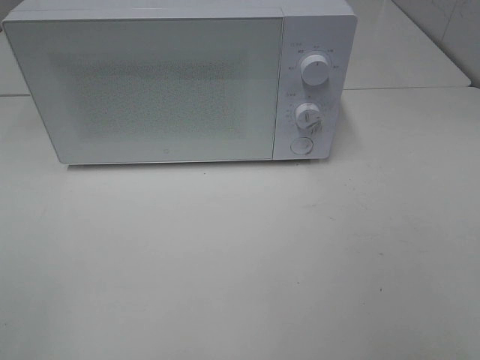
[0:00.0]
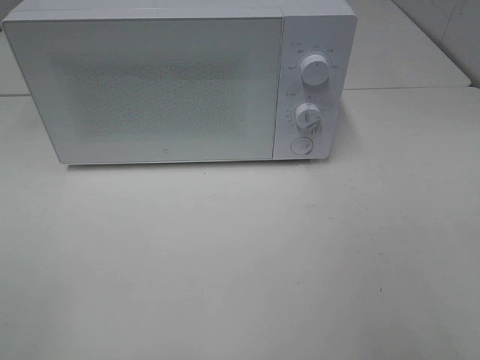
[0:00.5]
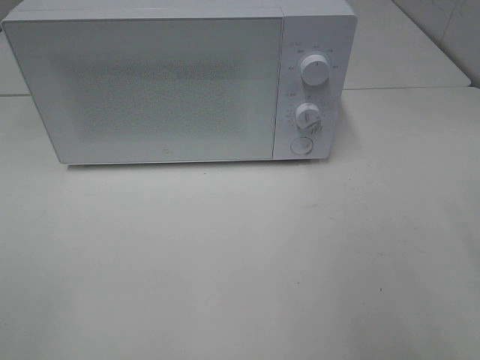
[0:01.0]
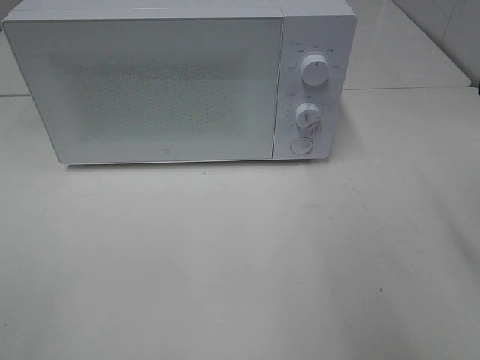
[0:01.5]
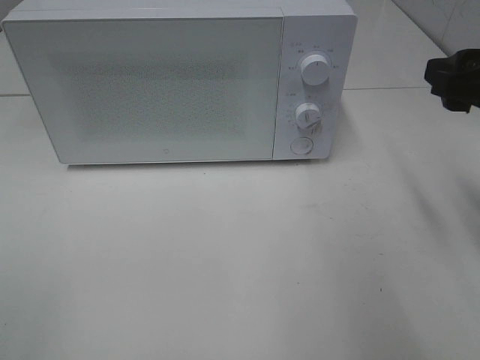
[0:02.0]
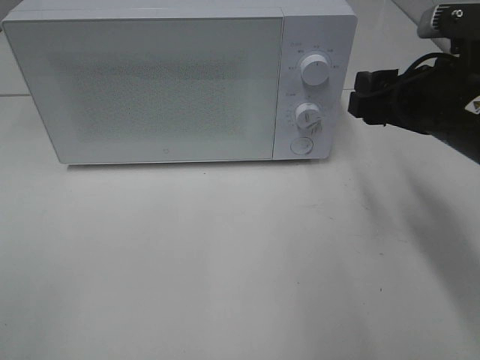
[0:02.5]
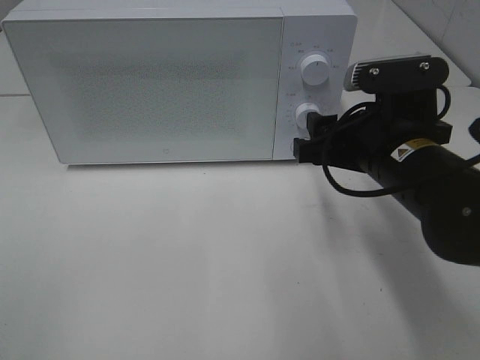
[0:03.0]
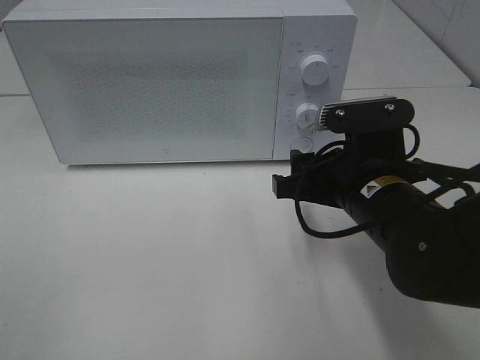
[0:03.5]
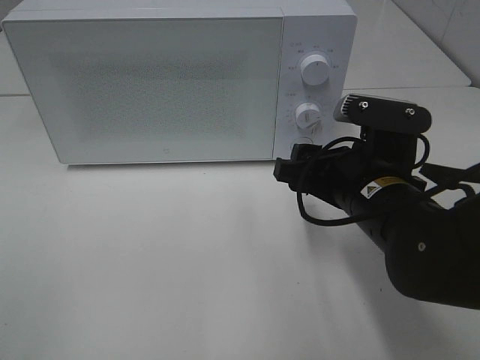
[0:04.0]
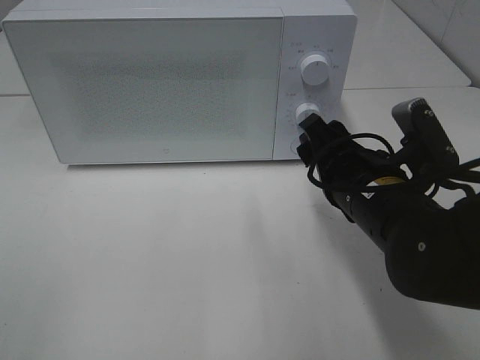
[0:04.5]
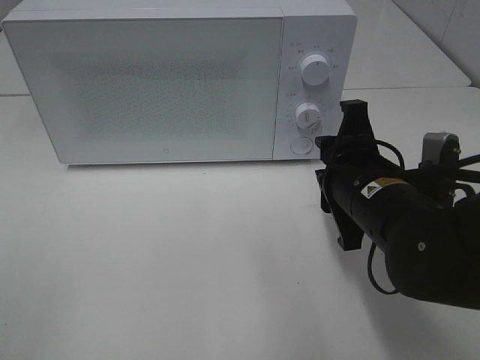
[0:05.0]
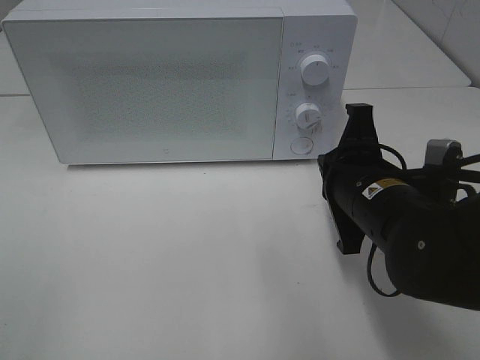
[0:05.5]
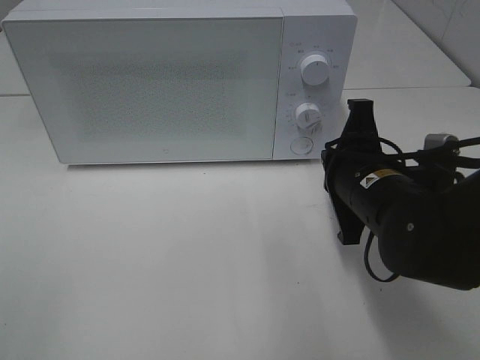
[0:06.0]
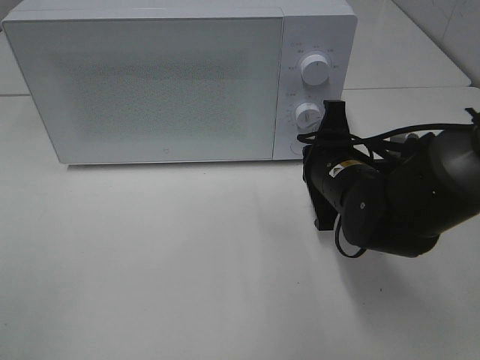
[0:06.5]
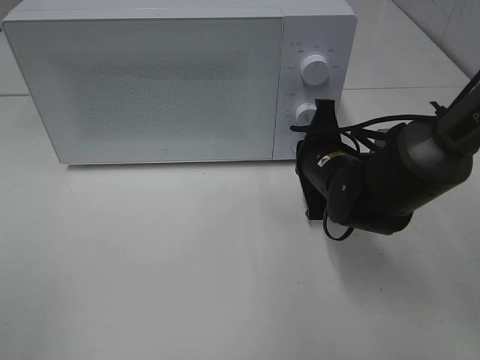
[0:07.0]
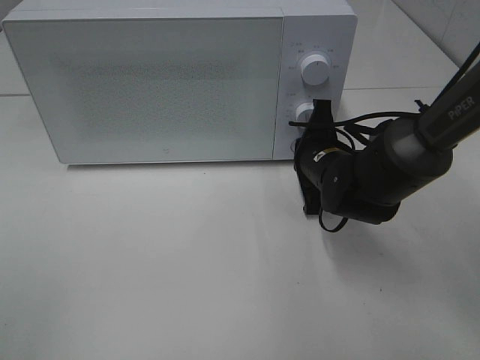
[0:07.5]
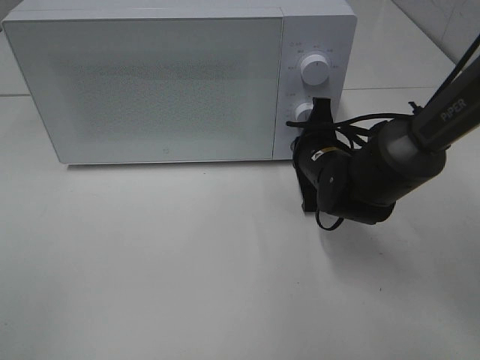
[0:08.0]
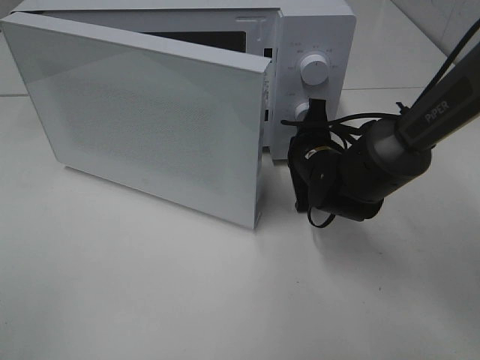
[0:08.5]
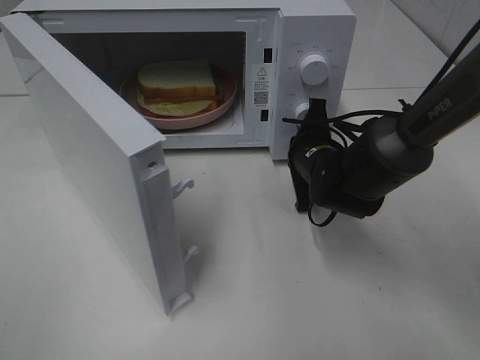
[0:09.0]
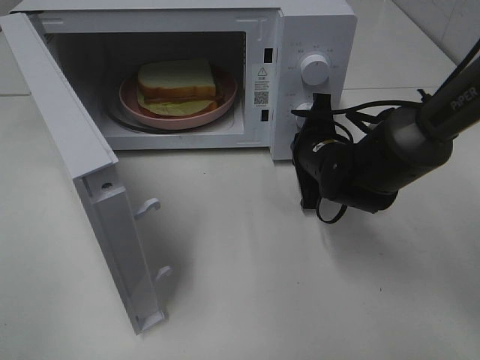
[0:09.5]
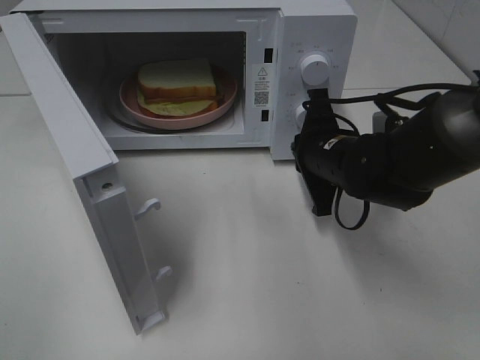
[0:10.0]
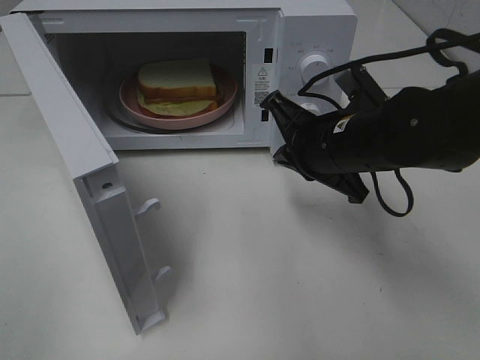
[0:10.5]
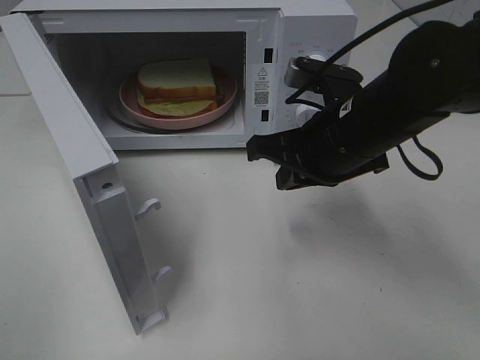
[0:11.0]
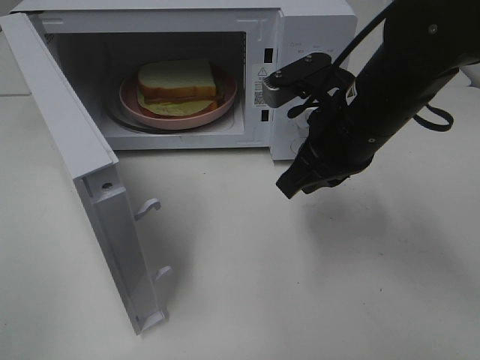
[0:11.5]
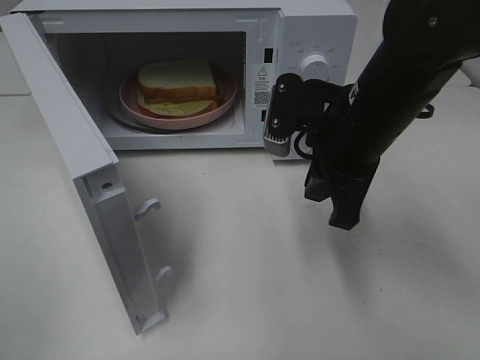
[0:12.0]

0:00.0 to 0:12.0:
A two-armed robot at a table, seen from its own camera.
Task of the whole recording: Heat Sandwich.
Step, 0:00.0 to 0:10.0: Right hand: press the switch.
0:00.0 to 0:02.0: The right gripper shifts approximately 25 cm forward.
0:02.0 to 0:04.0: The right gripper moves to the left and downward, about 15 cm.
0:04.0 to 0:06.0: The right gripper closes up.
0:06.0 to 0:08.0: The right gripper travels forward and downward by approximately 10 cm.
0:10.0 to 0:12.0: The right gripper goes about 10 cm upward.

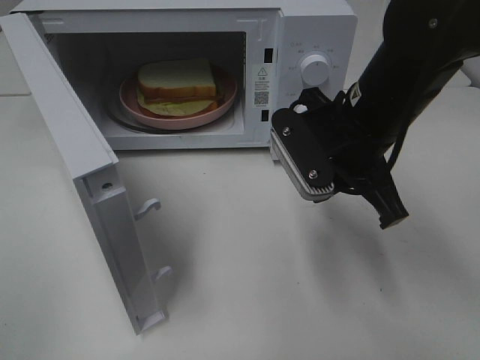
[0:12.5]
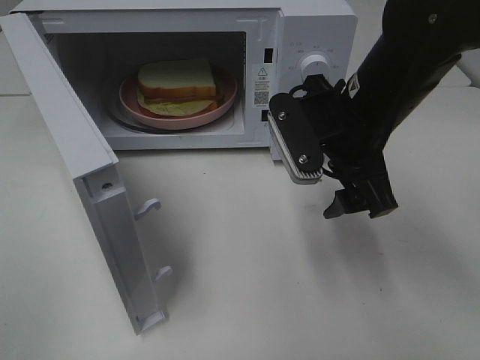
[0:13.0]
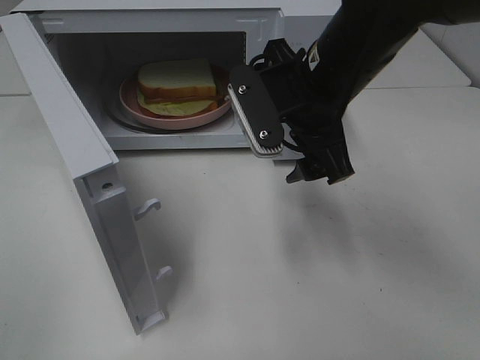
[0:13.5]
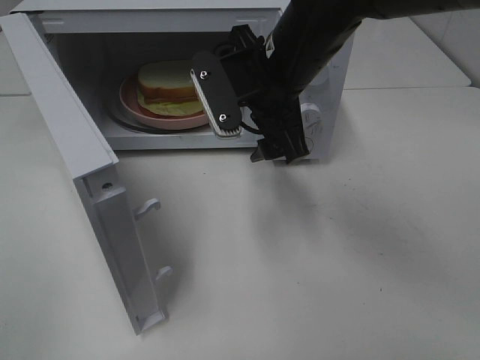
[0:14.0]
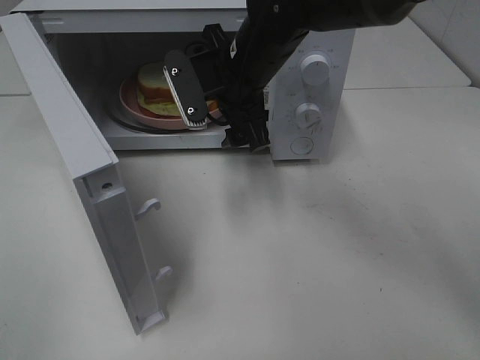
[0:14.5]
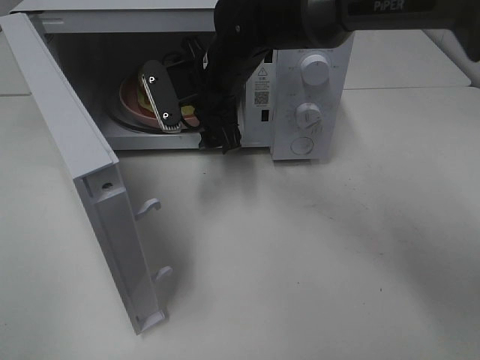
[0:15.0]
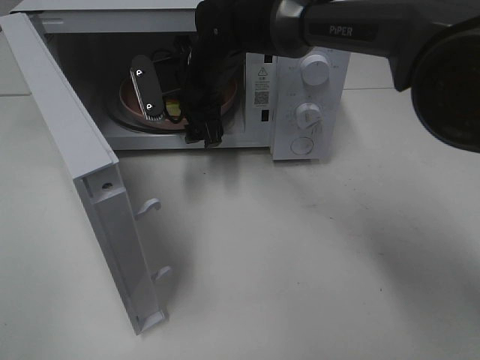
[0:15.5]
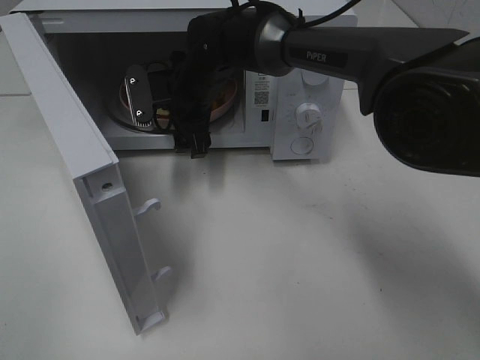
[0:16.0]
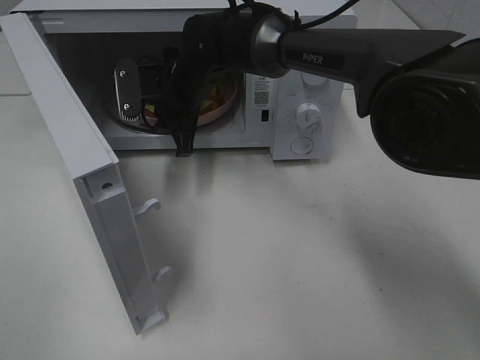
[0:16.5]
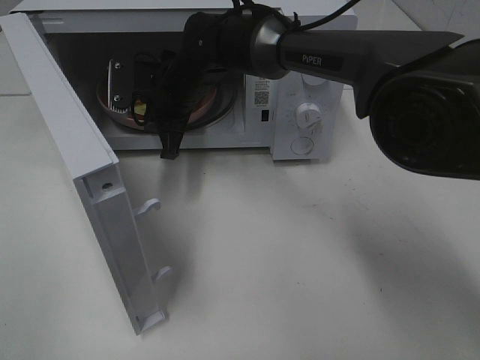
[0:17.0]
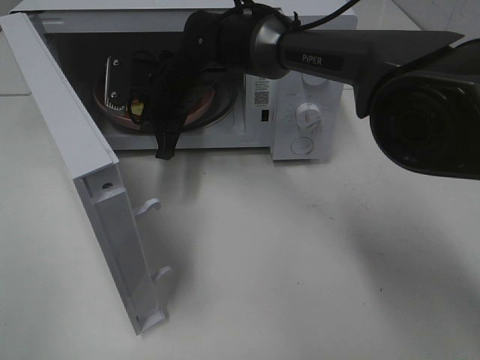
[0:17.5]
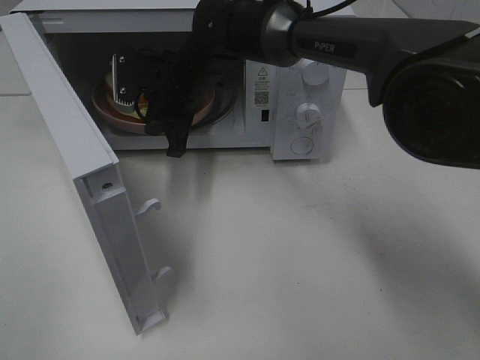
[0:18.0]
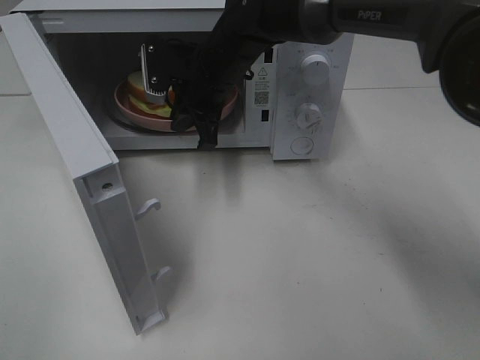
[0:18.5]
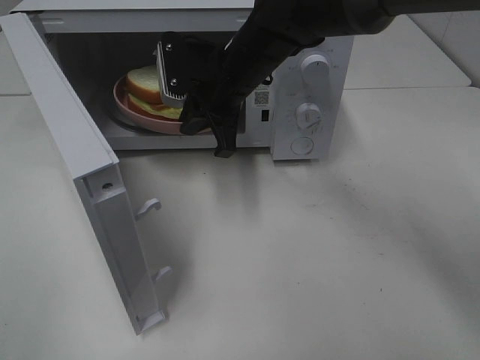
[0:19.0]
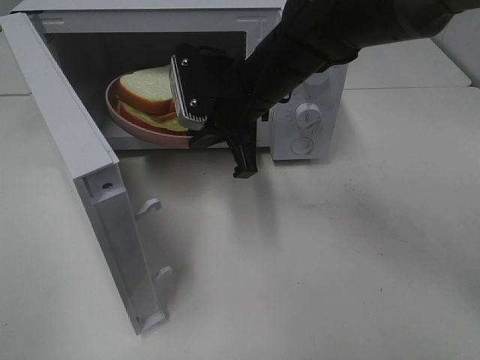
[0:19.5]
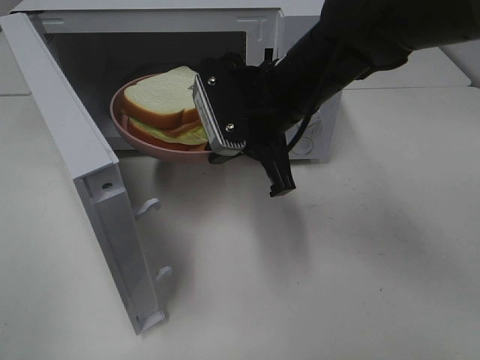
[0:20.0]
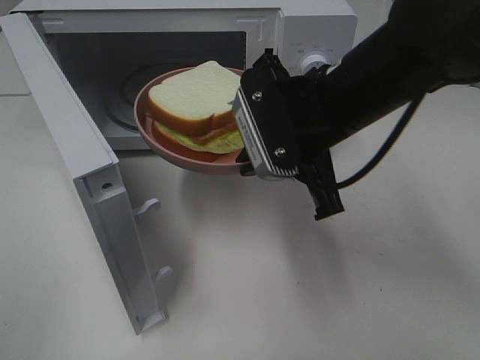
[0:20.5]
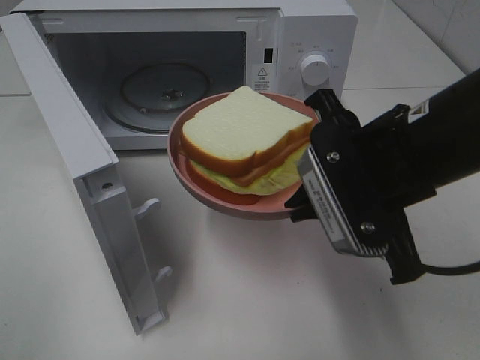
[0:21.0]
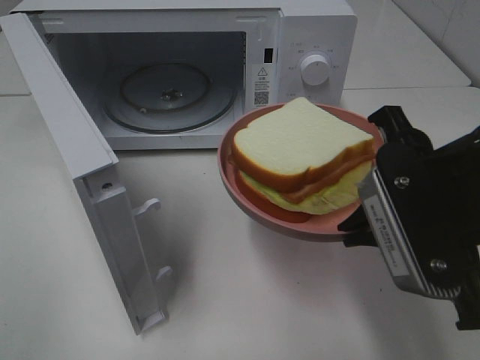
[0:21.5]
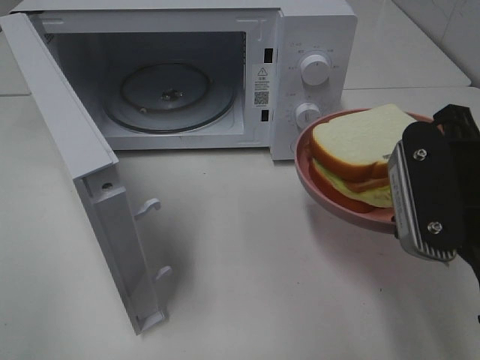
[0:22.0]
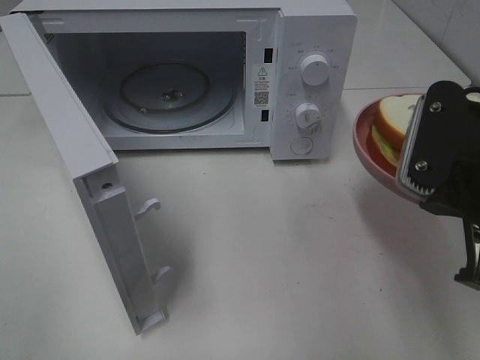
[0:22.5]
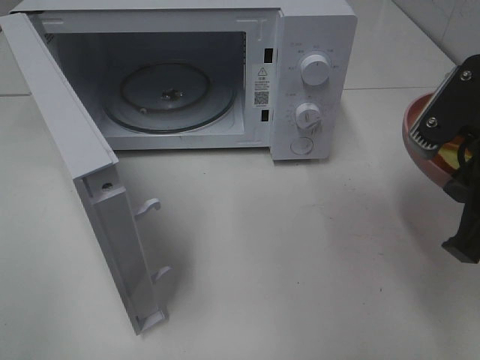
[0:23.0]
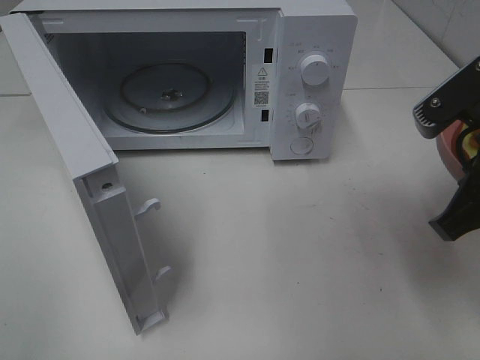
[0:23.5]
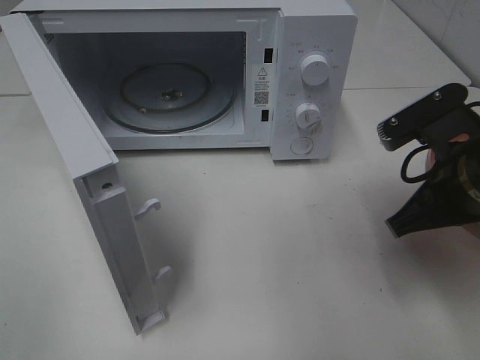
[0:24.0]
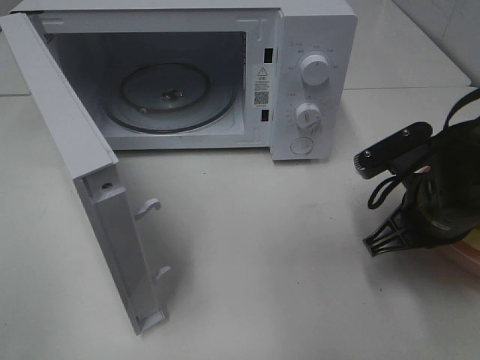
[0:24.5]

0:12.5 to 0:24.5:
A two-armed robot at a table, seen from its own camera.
Task of the whole recording: Heat Sandwich.
Step, 0:12.5 to 0:17.0: Right hand: grab the plate with the sandwich.
0:12.5 to 0:14.5: The right gripper travels to the left and forward by roughly 15 cm, and opens its fingers.
0:14.5 to 0:16.5: The right gripper travels to the left, forward and downward by about 10 cm, and closes up.
0:16.5 to 0:18.5: The right gripper shifts by roughly 5 cm.
0:18.5 to 0:20.5: The right gripper heads backward and to the right, covering approximately 20 cm.
0:20.5 to 0:22.5: The right gripper is displaced to the right and backward by about 15 cm.
0:22.5 to 0:24.5: The right gripper moves downward and forward, some 15 cm.

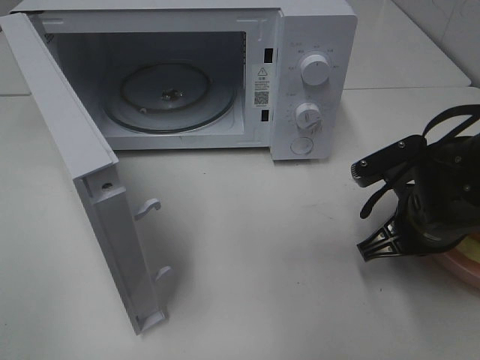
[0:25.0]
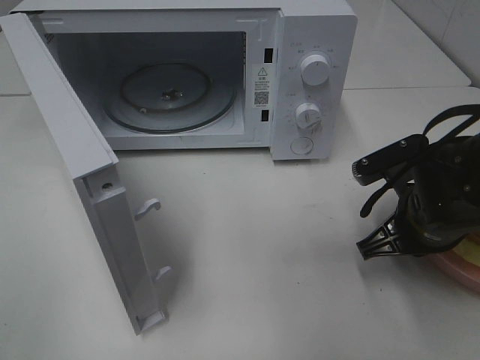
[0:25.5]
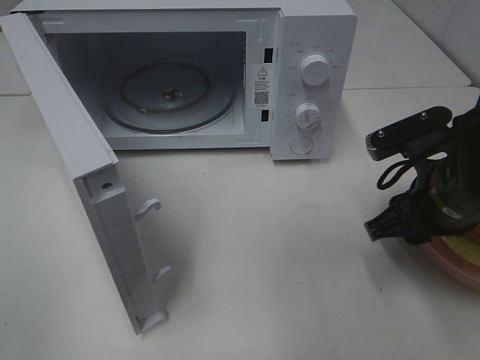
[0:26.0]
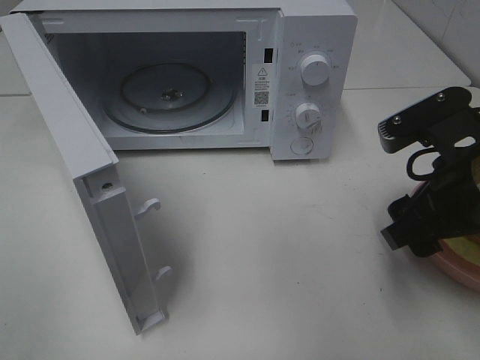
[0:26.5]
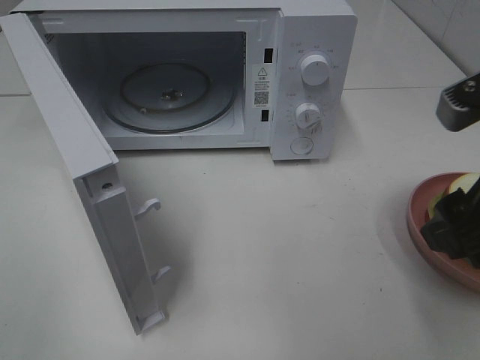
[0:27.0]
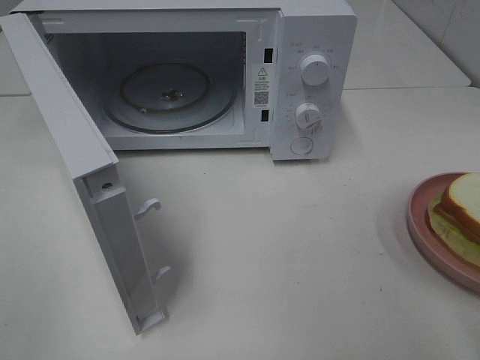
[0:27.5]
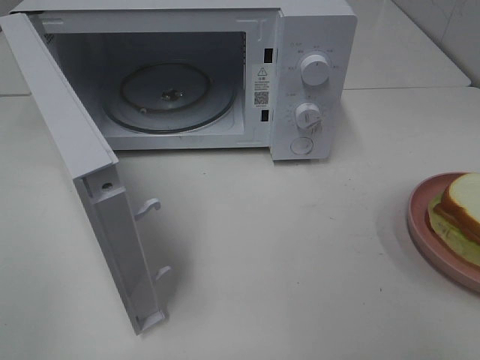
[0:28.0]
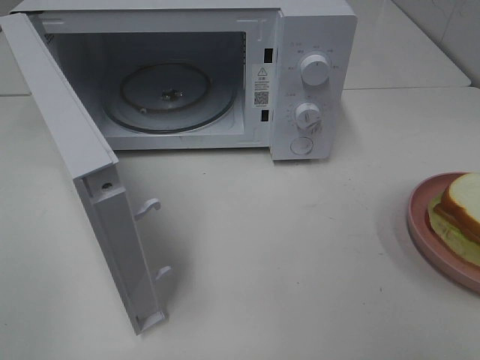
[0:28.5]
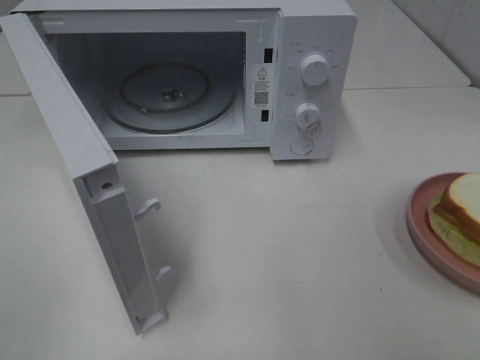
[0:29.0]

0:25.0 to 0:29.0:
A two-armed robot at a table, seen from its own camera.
Task of the whole recording: Heat Sandwich.
Step, 0:25.0 to 0:27.0: Right hand: place the plate on the table.
0:25.0 to 0:27.0: The right gripper travels upward and backward by roughly 15 cm, and opens up.
0:27.0 to 0:29.0: The right gripper moves backward and to the right, about 15 cm.
